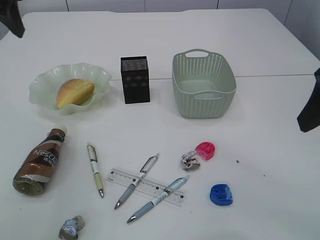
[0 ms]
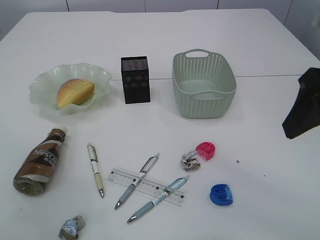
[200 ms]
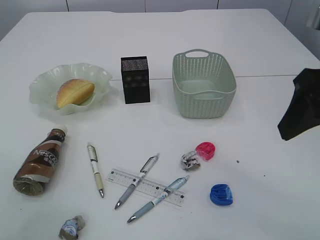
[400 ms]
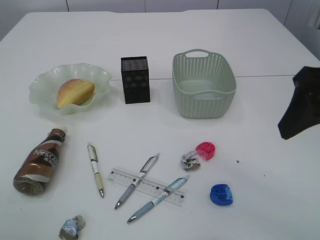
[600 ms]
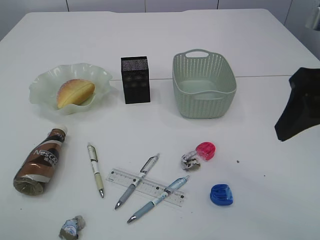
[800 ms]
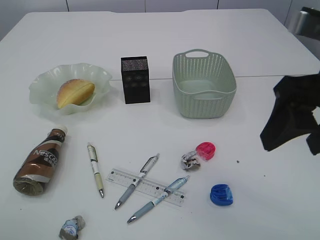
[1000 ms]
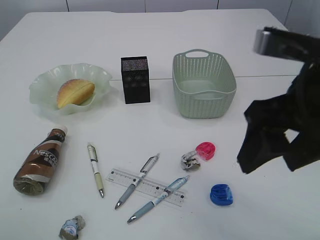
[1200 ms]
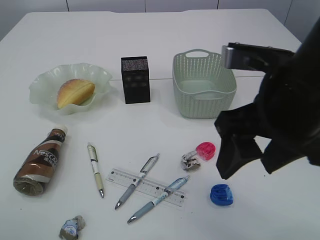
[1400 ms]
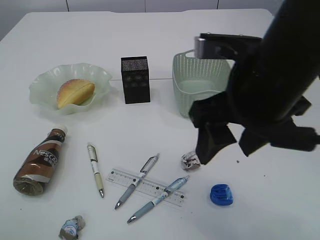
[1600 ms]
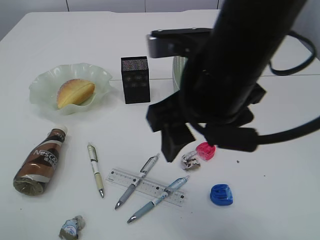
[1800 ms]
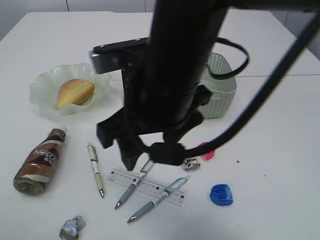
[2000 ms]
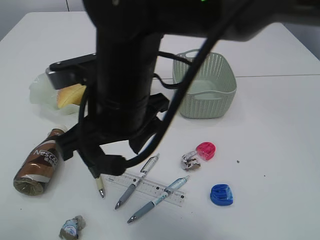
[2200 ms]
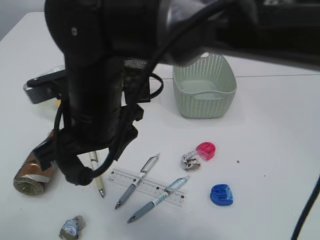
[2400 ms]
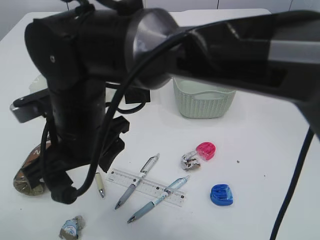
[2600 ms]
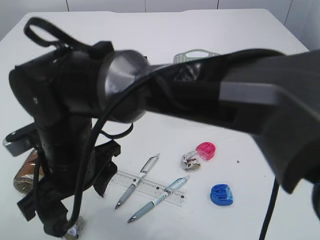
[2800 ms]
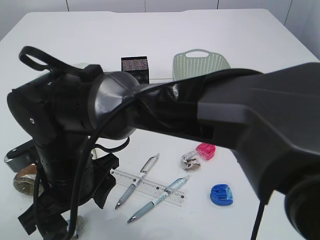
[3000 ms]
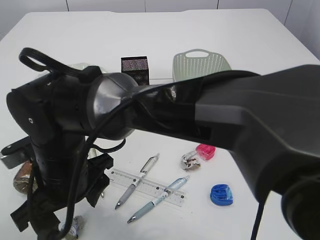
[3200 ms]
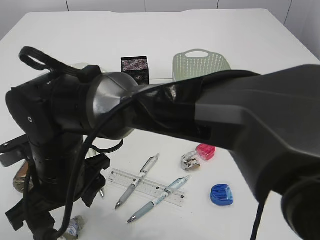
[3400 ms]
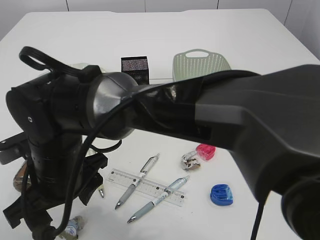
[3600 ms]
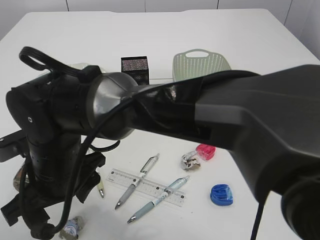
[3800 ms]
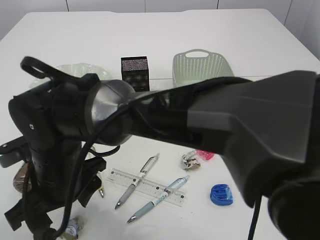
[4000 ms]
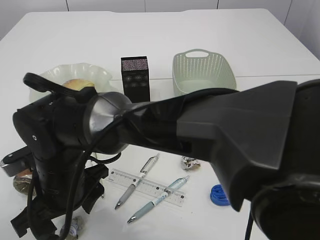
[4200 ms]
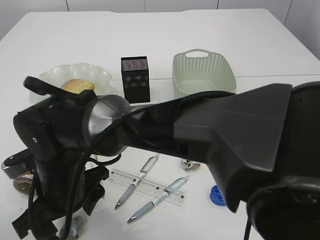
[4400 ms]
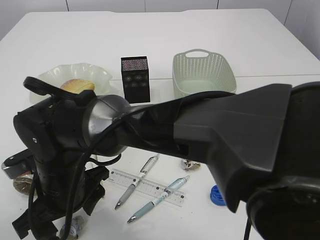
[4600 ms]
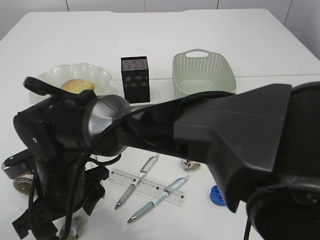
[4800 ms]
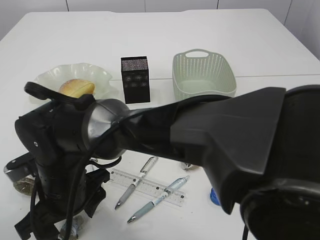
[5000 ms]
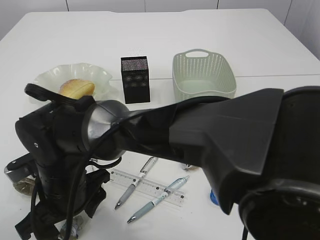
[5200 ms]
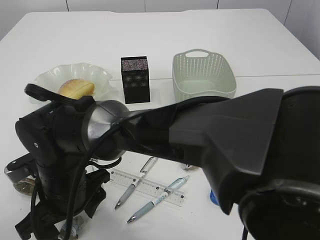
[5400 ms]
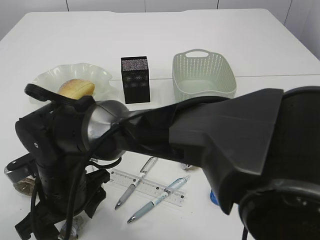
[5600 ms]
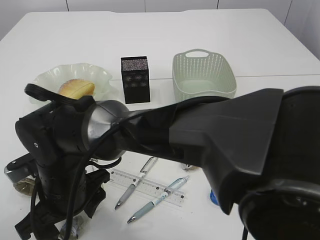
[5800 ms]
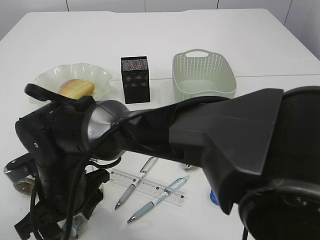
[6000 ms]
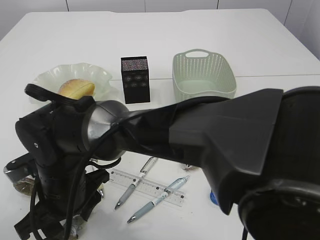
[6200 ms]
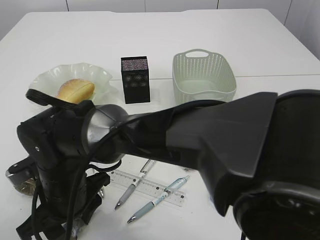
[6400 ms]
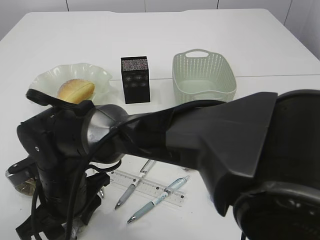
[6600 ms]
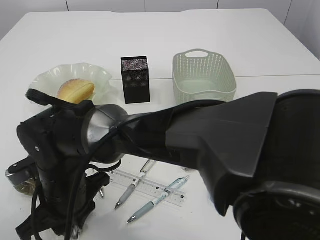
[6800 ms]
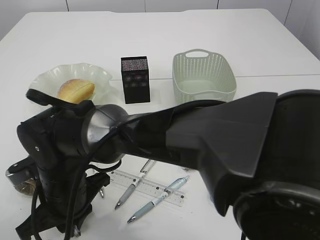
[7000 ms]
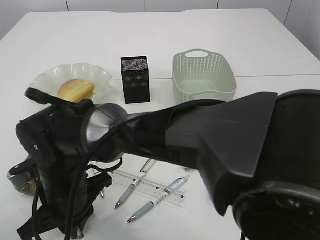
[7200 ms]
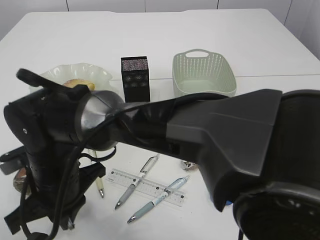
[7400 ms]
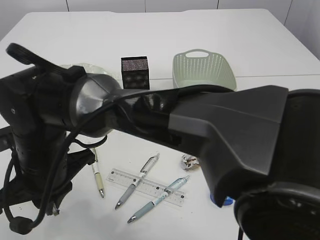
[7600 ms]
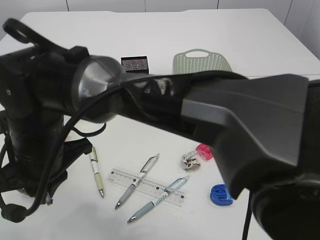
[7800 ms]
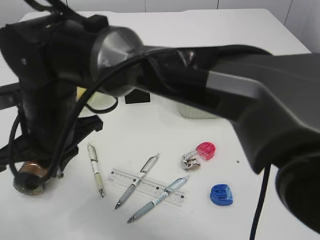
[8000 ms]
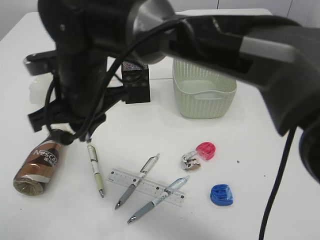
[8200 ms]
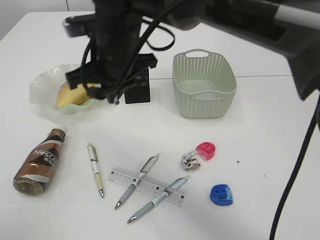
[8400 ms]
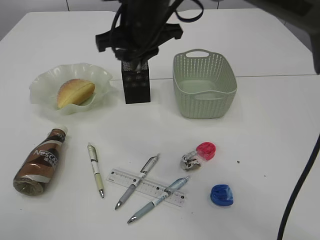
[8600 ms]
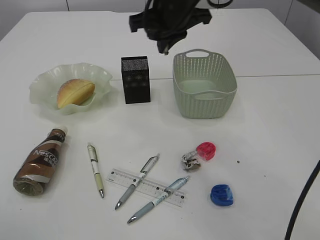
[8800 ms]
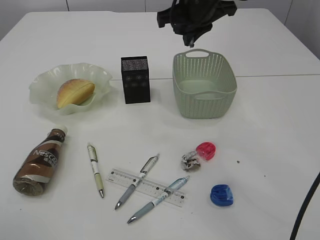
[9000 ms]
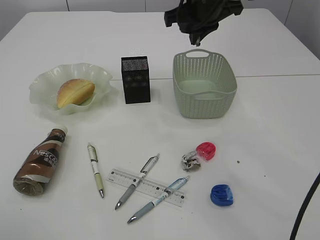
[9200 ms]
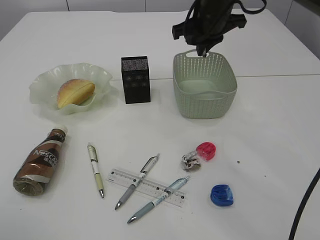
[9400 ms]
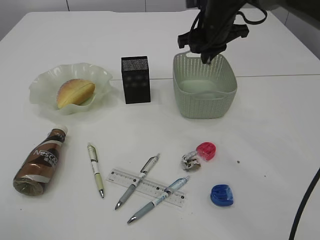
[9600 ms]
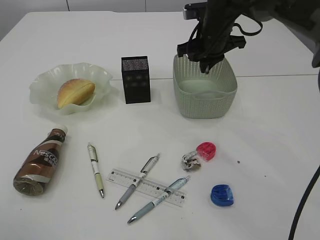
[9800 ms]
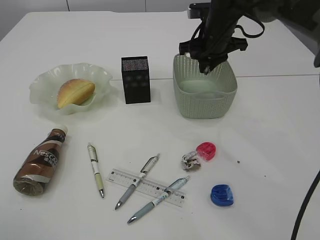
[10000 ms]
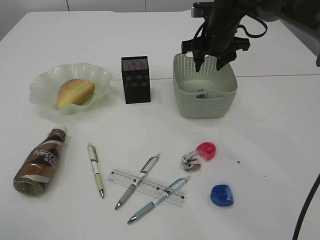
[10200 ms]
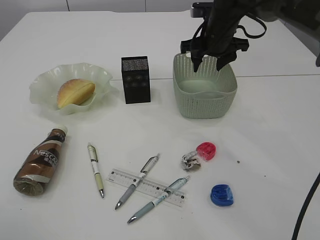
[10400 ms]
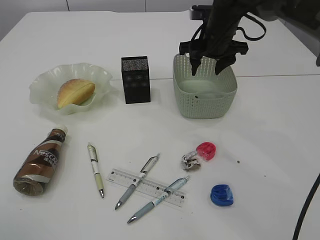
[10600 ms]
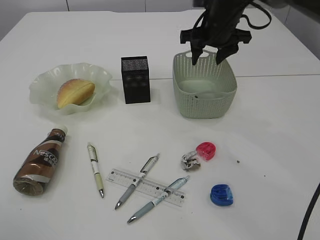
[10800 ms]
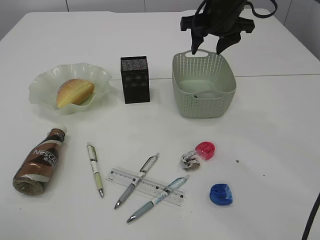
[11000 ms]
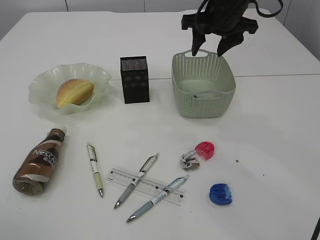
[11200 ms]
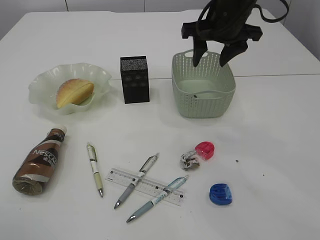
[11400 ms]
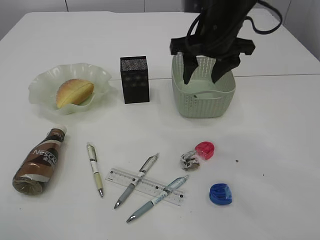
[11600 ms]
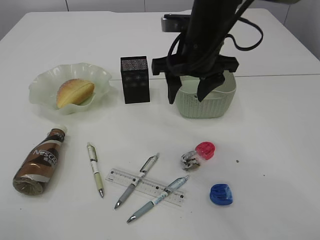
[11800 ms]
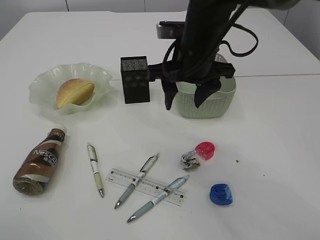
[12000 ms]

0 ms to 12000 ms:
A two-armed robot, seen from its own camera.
Step, 0 ms to 7400 ms: Pick up the plastic.
Step, 7600 ms to 10600 ms: Place the plastic in the basket.
0 ms to 1600 ms: The left gripper shifts roughly 20 cm backward, while the right gripper travels to the left by approximately 15 cm.
1600 ms to 3000 ms: The right gripper moves to the left and downward, about 25 cm.
4400 ms to 6000 ms: Neither gripper changes place.
6000 ms to 7600 ms: The right gripper closes its fingers.
7600 ms to 9000 ms: The right gripper travels to the right, forward and upward by some 35 cm.
9000 ms to 10400 ms: The right gripper is displaced downward, to the right and forward by roughly 10 cm, and opens up.
10400 ms to 12000 ms: The right gripper is displaced backward and to the left by approximately 15 cm.

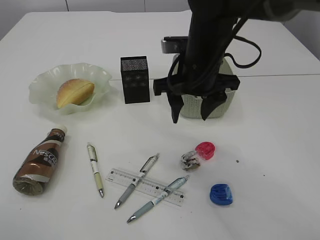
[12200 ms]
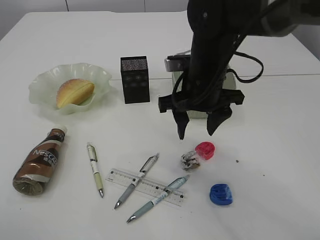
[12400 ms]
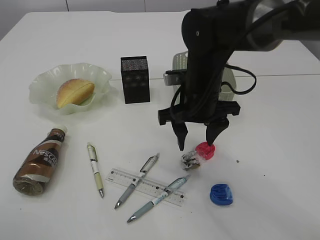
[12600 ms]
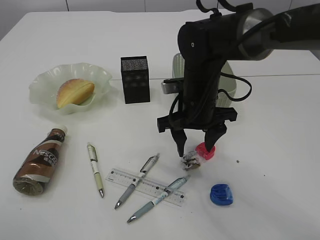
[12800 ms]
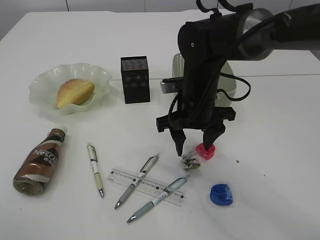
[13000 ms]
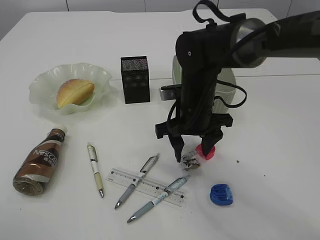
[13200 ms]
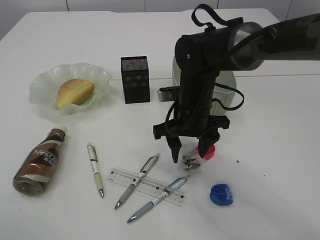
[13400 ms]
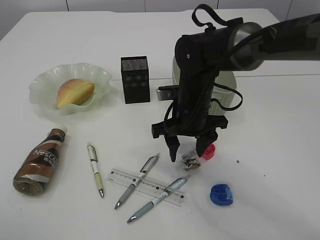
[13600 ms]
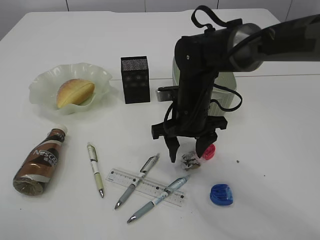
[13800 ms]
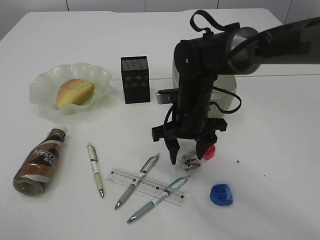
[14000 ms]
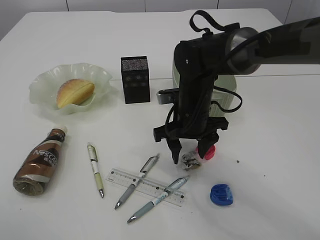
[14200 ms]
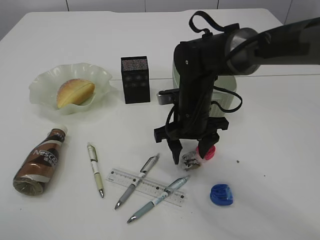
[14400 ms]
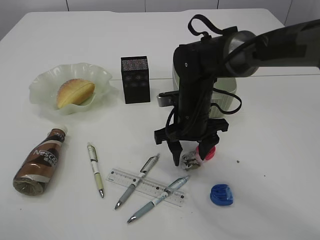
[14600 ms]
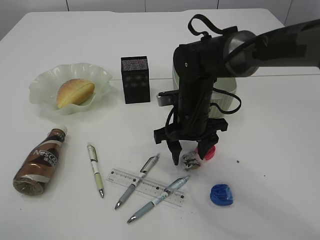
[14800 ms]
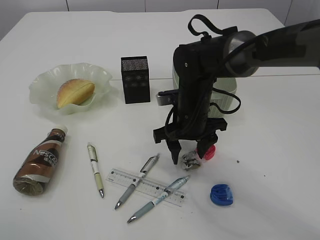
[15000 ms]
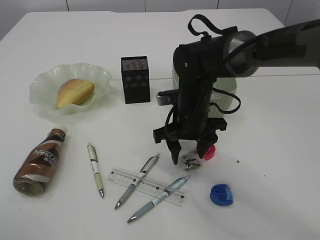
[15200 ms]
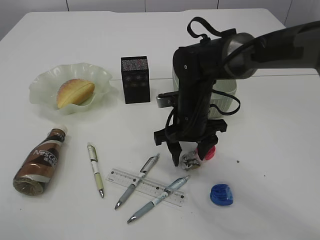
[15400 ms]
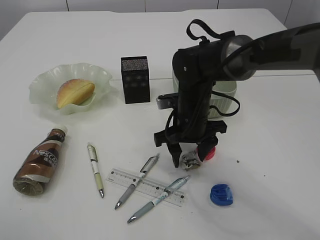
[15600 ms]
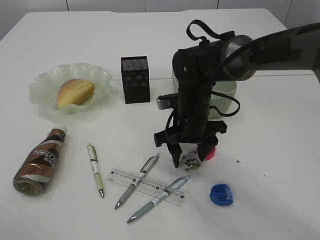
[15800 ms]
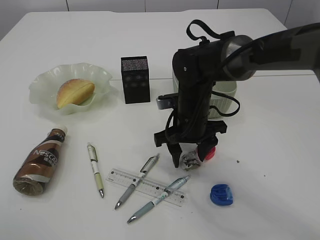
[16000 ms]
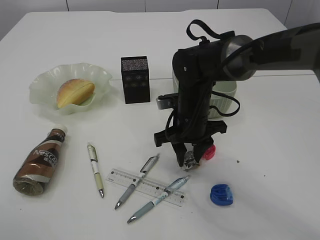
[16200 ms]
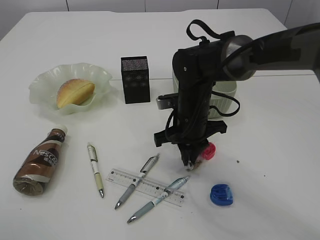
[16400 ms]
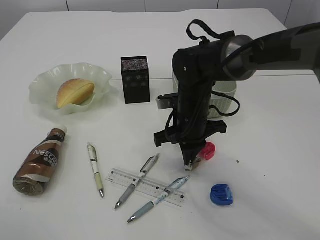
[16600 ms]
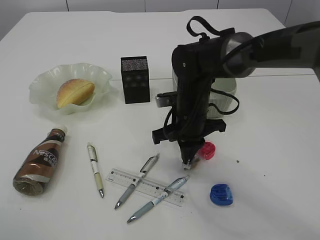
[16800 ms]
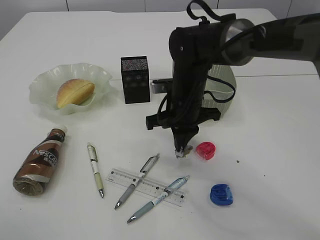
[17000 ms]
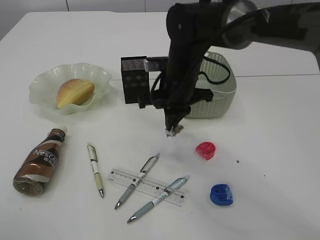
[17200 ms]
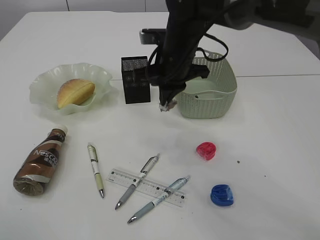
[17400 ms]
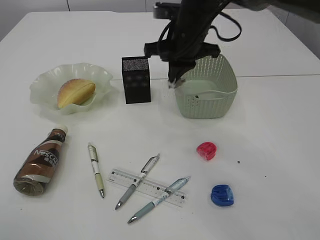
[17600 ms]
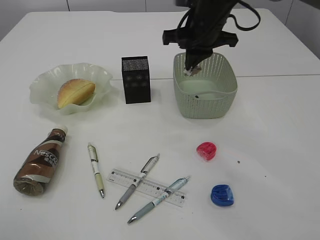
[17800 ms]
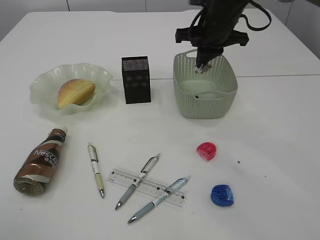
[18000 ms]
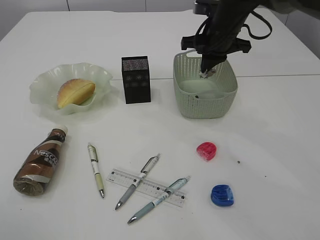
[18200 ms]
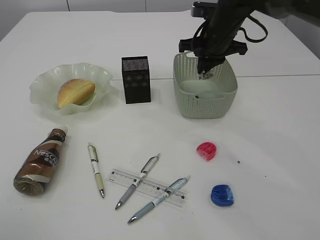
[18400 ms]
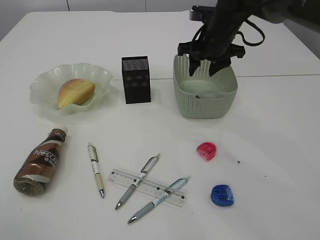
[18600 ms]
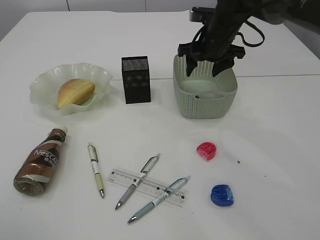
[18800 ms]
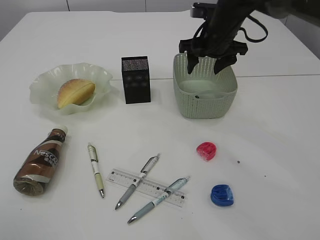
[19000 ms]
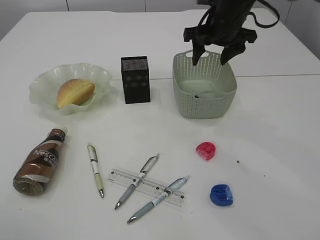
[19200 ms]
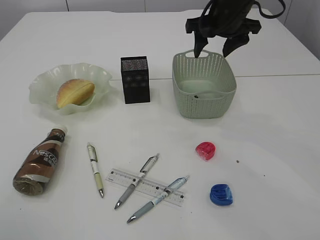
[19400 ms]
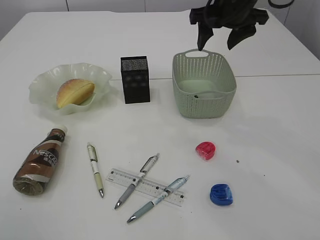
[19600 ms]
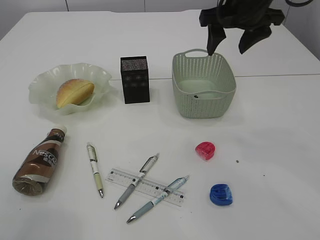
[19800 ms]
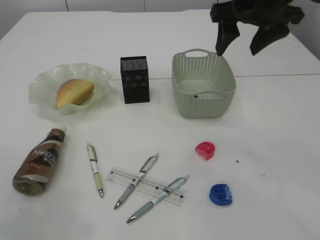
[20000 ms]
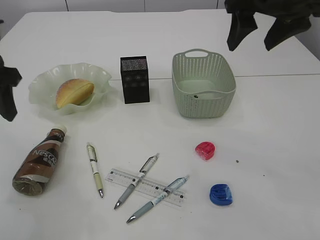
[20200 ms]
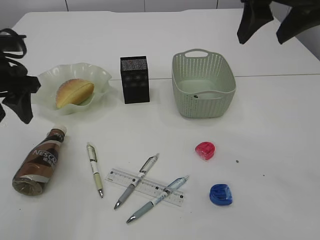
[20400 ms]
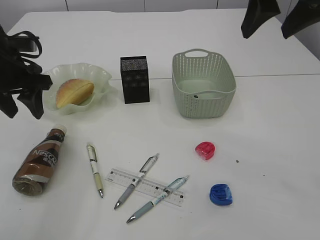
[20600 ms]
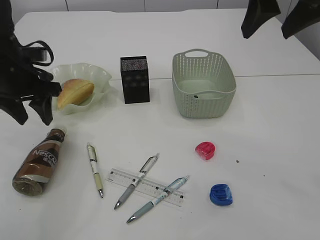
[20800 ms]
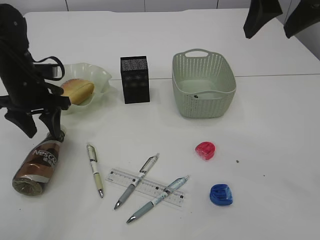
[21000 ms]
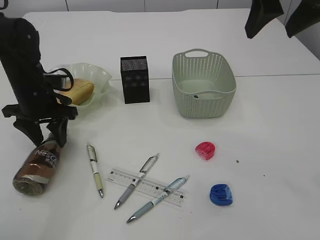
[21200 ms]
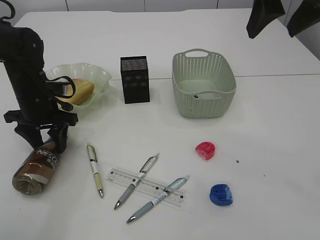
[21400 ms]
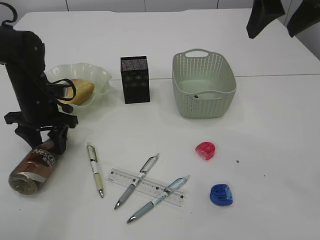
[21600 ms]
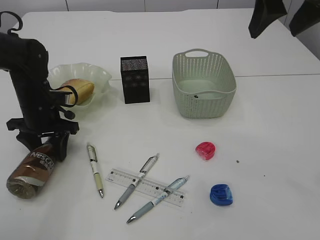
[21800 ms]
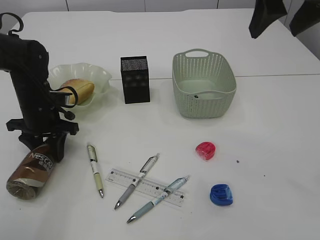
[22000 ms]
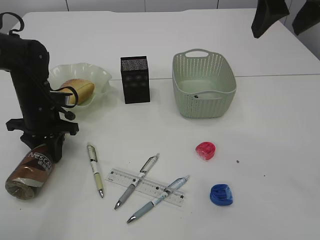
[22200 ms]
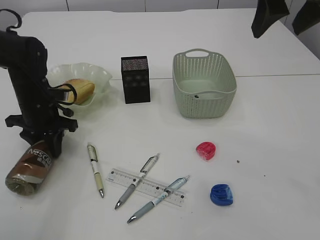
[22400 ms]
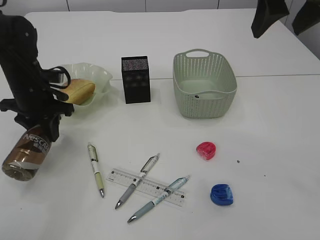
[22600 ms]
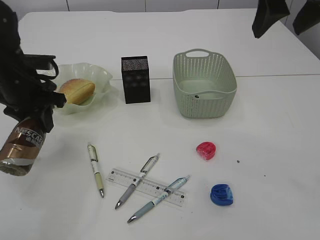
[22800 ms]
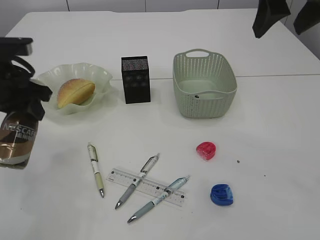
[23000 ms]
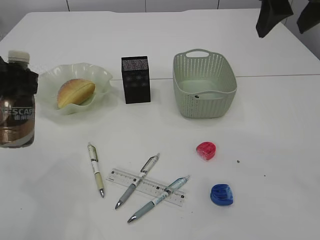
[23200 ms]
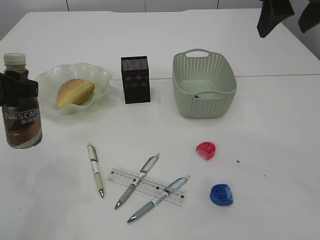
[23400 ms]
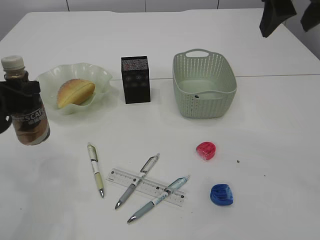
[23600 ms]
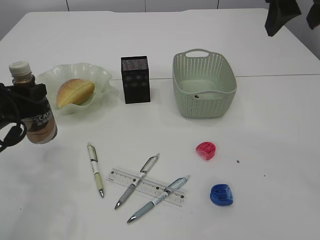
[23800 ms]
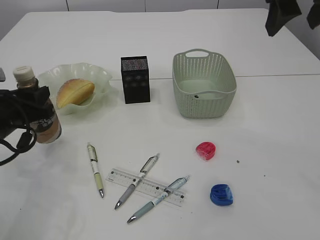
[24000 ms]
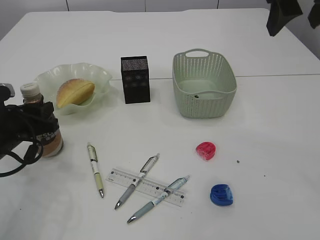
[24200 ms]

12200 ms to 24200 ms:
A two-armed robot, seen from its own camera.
Step, 12200 ms to 17000 ms: Pick up the waste paper.
Step, 17200 ms to 19000 ms: Place the waste paper in the basket.
Step, 19200 ms to 22600 ms: Pick up the bottle with the left arm.
12200 ms to 13800 ms: The right gripper shifts roughly 10 cm downward.
13800 ms to 15200 ms: Neither gripper changes place.
15200 ms to 16600 ms: The right gripper closes up.
16600 ms to 18200 ms: The right gripper shifts some 20 cm upward, forward and to the right.
18200 ms to 19800 ms: The right gripper is displaced upward and backward by about 10 cm, and opens up; the left gripper is displaced forward by some 5 cm.
19800 ms to 21200 ms: The right gripper moves backward and upward, some 15 cm; the left gripper travels downward and forward by roughly 25 cm.
21200 ms to 22600 ms: The left gripper closes up.
22600 ms to 24200 ms: The left gripper is displaced backward by about 10 cm, and reaches roughly 10 cm upward, then returns.
